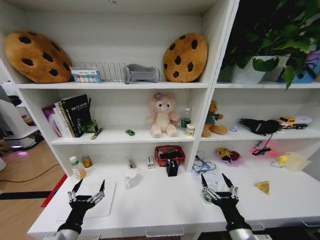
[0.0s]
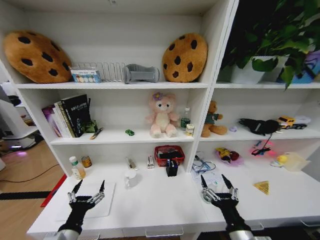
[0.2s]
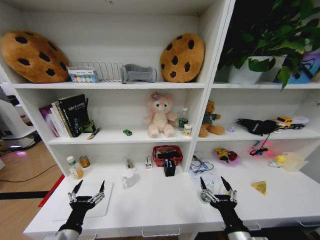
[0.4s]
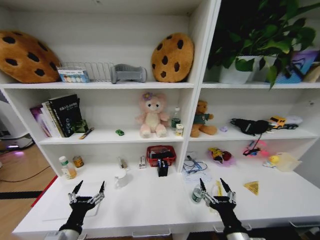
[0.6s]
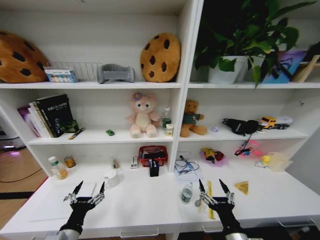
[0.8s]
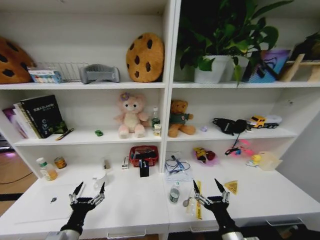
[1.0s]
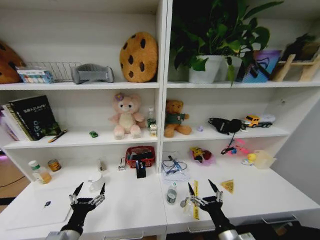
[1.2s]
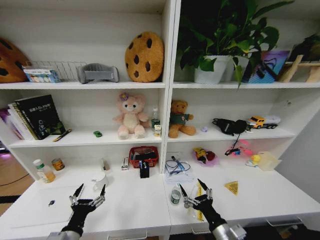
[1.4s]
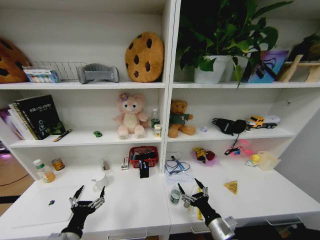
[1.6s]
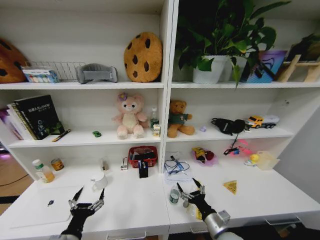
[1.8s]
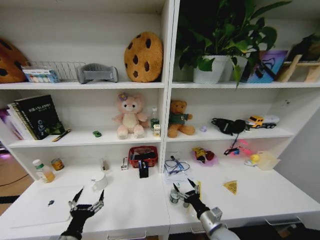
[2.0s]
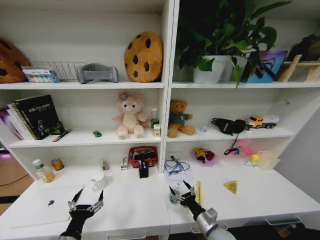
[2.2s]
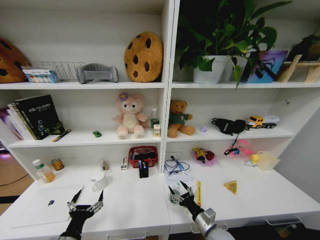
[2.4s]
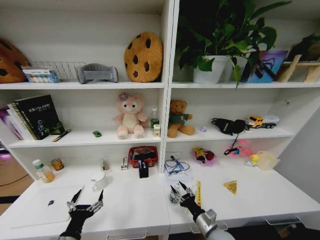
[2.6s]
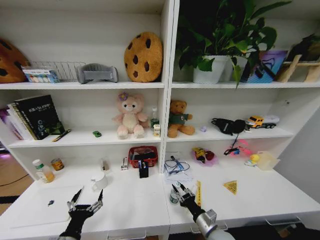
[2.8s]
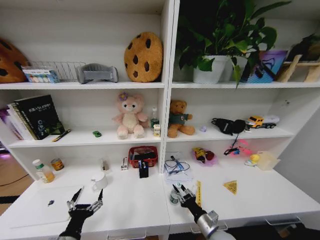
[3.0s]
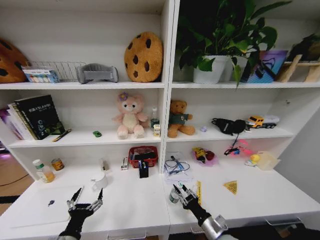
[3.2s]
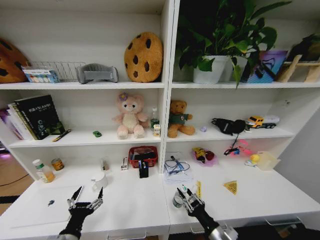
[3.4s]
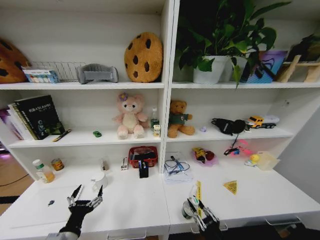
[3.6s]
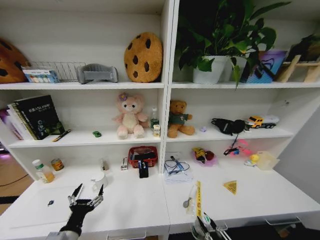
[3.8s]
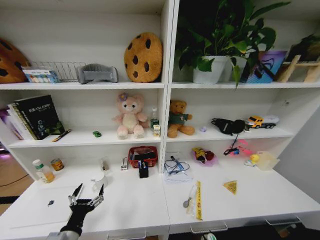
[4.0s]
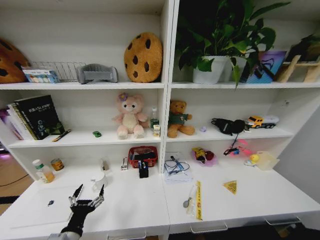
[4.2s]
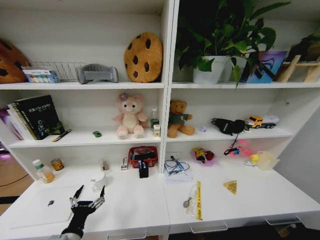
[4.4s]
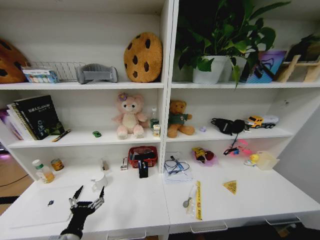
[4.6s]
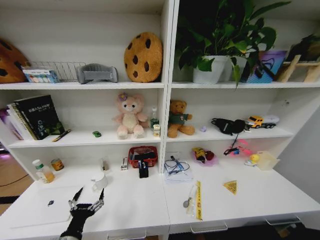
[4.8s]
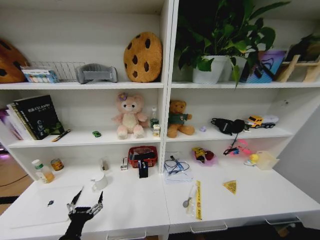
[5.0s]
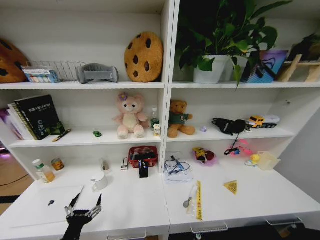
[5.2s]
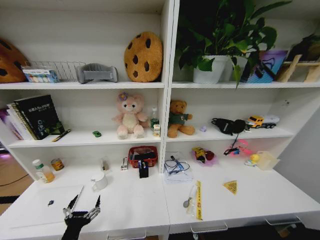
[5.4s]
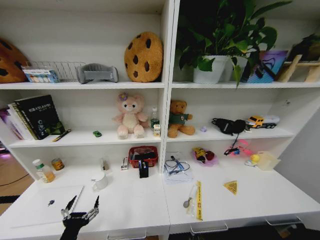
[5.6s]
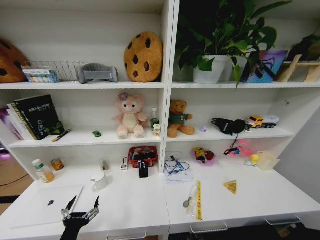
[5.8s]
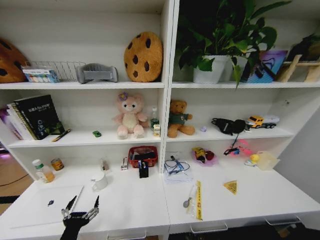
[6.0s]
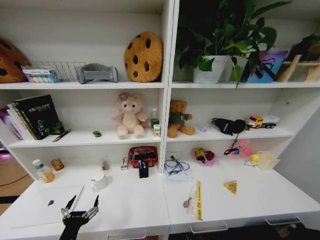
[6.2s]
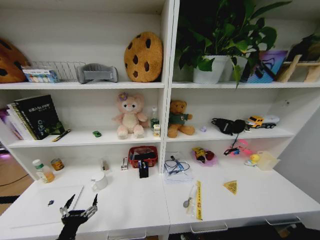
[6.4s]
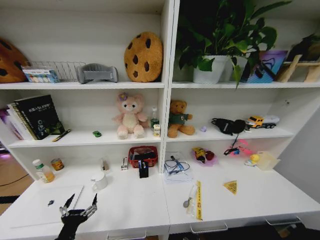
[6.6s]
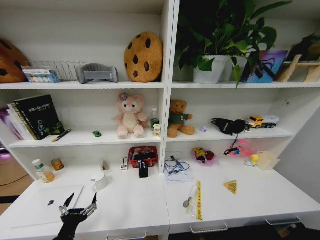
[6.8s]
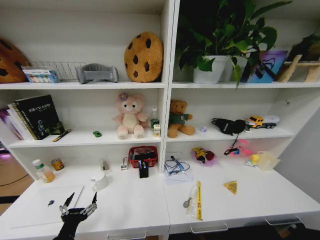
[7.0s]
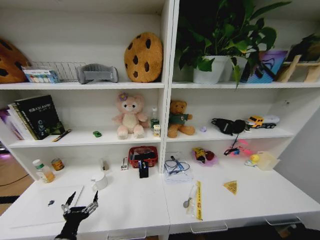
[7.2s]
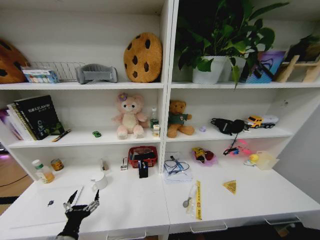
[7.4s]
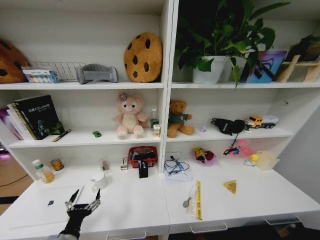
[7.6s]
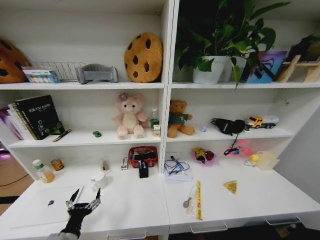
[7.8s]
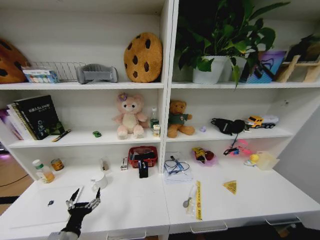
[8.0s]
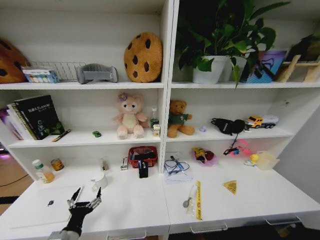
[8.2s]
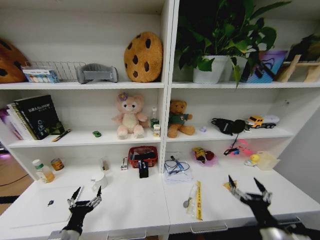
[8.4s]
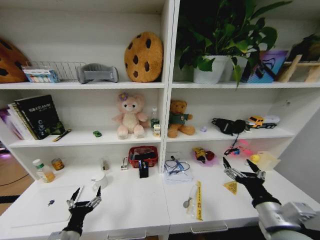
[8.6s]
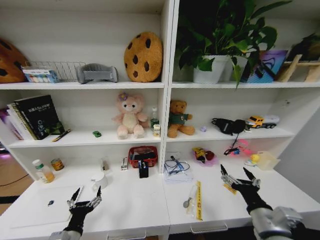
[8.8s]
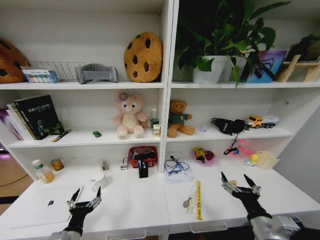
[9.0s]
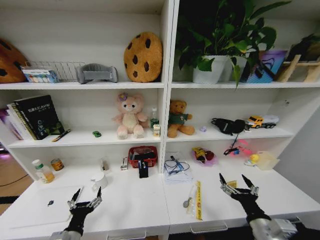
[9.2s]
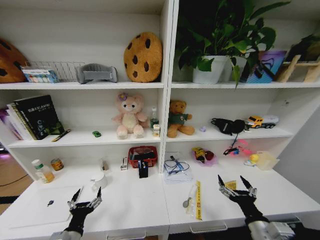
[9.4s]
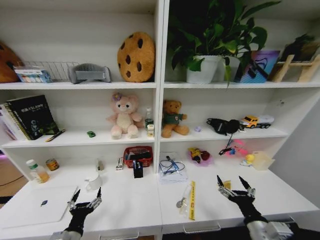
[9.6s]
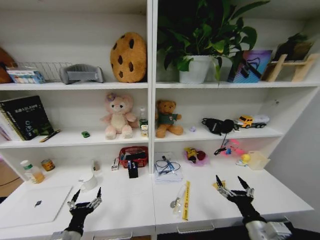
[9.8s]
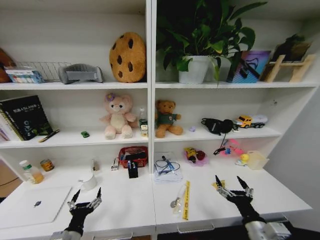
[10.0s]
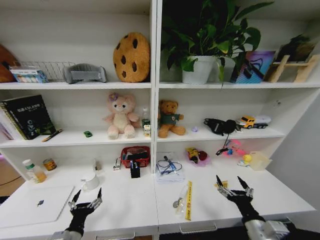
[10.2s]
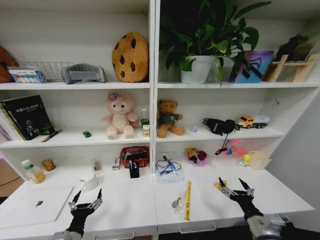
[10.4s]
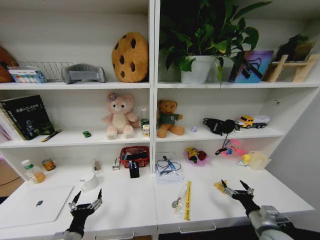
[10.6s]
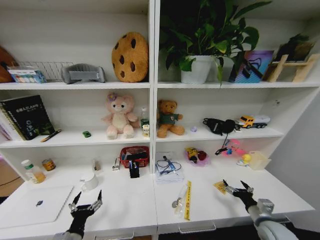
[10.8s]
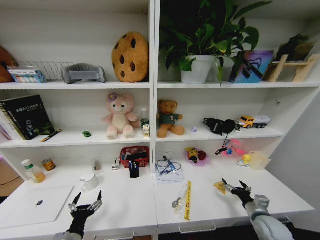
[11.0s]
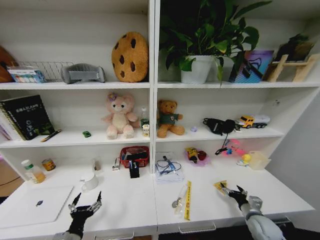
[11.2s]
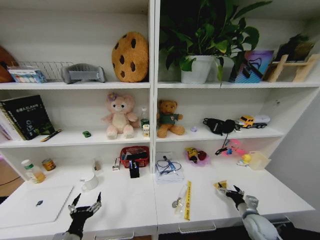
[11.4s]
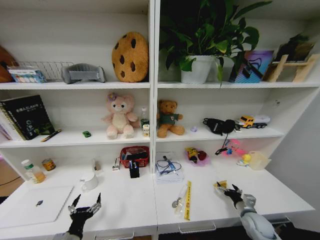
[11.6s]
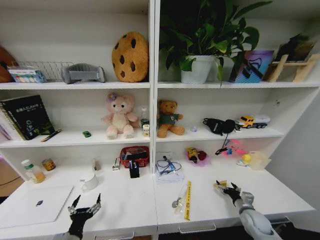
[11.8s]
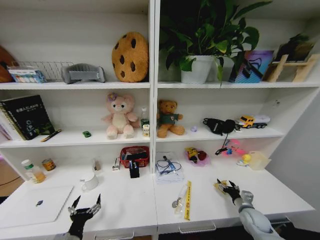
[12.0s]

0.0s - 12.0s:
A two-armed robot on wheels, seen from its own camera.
Task of the whole recording: Organize the objects on the table.
0.0s - 1.6s: The right gripper moves downward, some 10 cm.
1.6s - 3.0s: The right gripper travels downward by some 5 cm, and closes.
3.0s - 4.4s: The right gripper travels backward by approximately 30 cm.
6.0s - 7.6s: The right gripper moves backward and upward, approximately 30 cm, and opens up.
7.6s - 9.0s: The right gripper is displaced upward and forward by roughly 40 cm.
9.0s - 10.4s: The right gripper travels downward by some 5 cm.
10.4s - 12.0s: The right gripper travels forward, downward and to the right by some 20 cm.

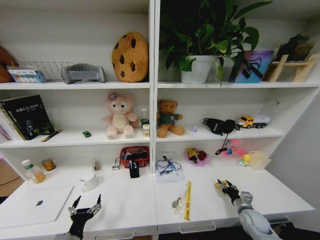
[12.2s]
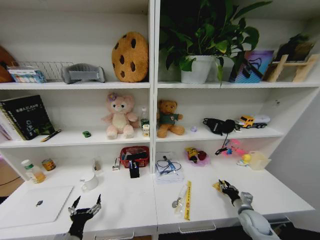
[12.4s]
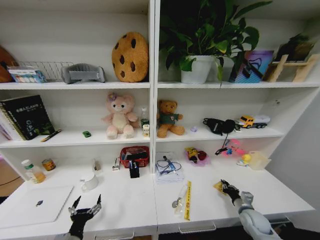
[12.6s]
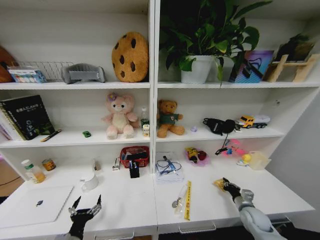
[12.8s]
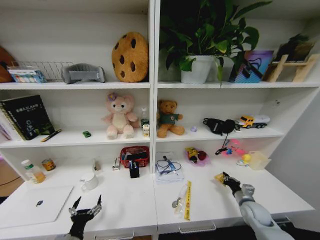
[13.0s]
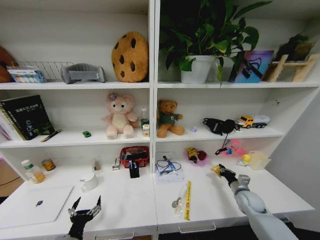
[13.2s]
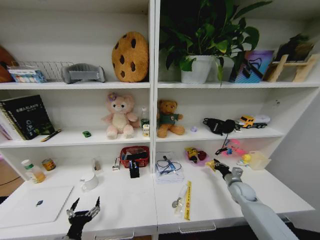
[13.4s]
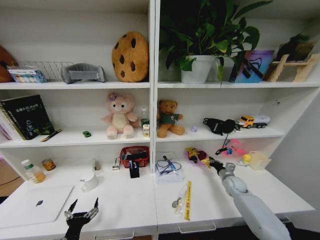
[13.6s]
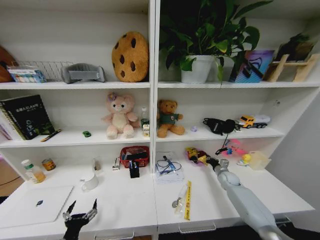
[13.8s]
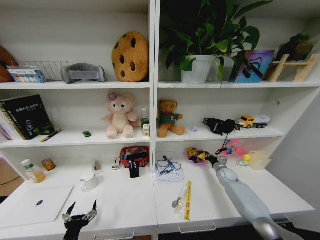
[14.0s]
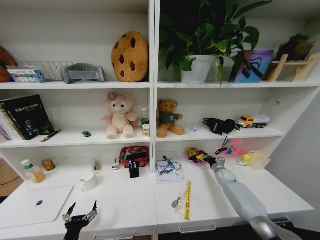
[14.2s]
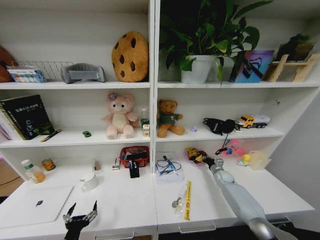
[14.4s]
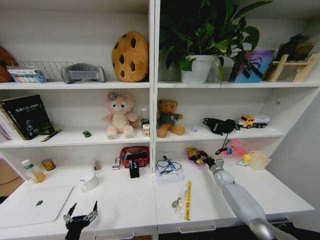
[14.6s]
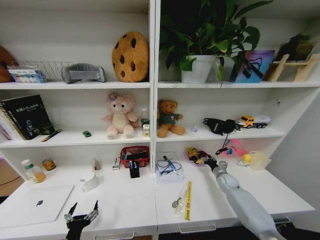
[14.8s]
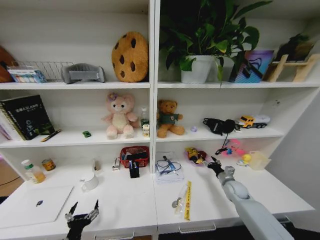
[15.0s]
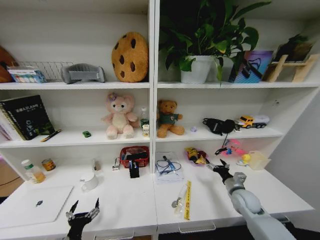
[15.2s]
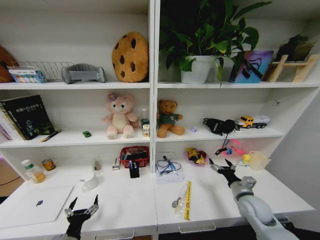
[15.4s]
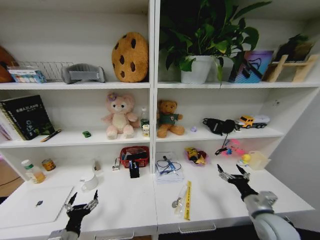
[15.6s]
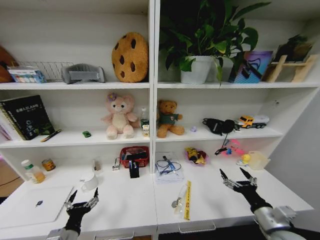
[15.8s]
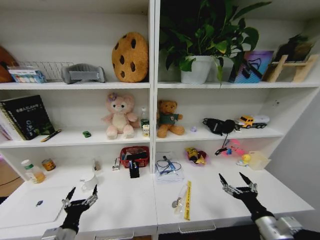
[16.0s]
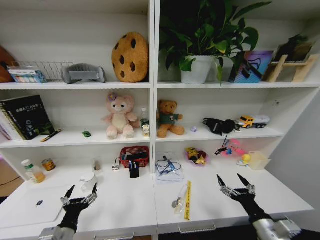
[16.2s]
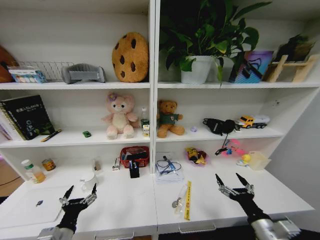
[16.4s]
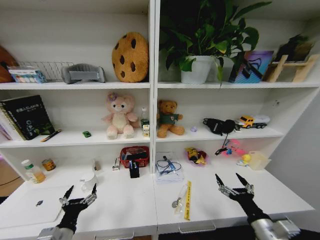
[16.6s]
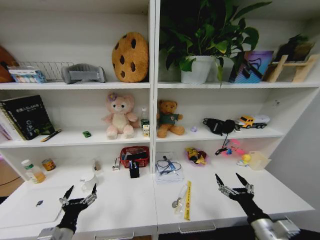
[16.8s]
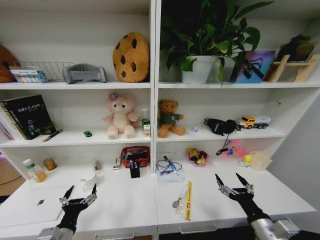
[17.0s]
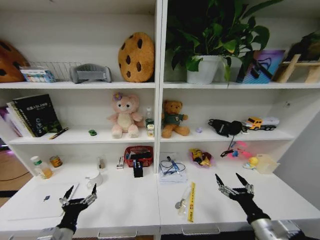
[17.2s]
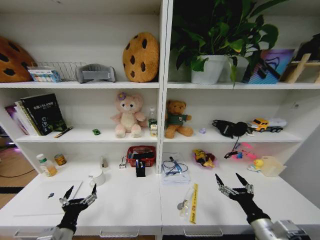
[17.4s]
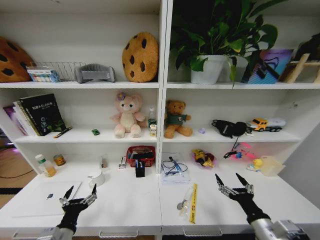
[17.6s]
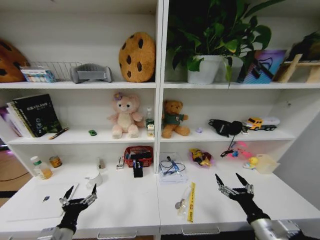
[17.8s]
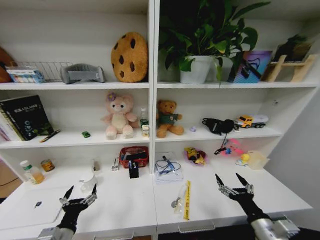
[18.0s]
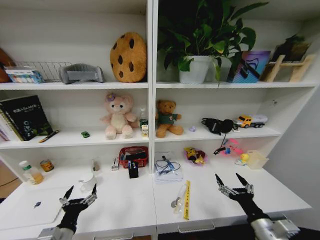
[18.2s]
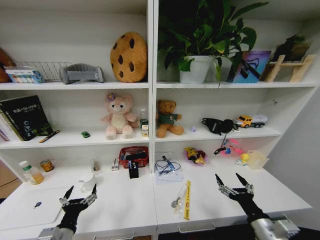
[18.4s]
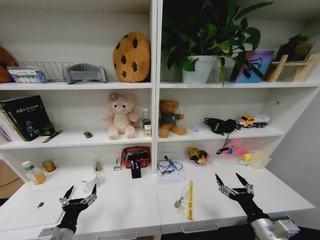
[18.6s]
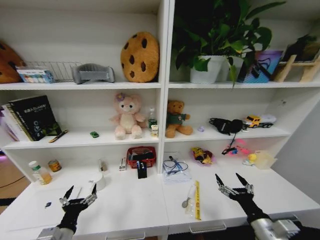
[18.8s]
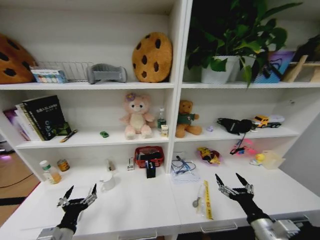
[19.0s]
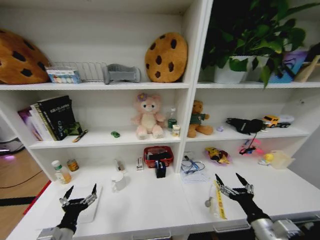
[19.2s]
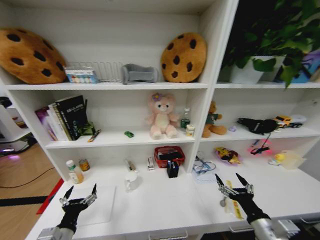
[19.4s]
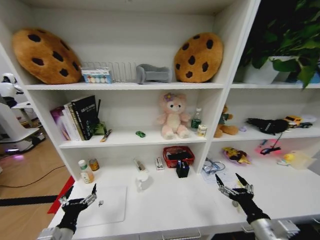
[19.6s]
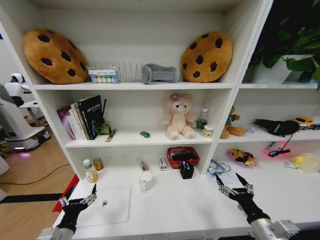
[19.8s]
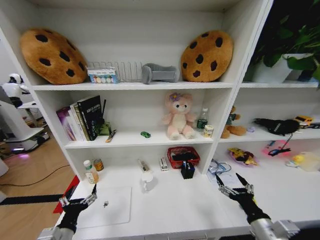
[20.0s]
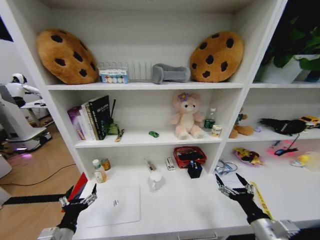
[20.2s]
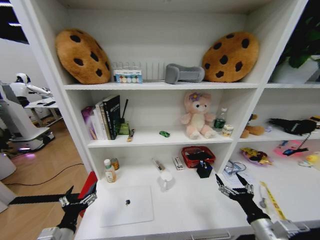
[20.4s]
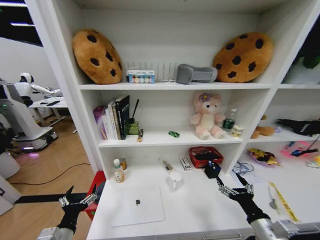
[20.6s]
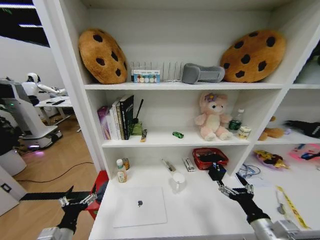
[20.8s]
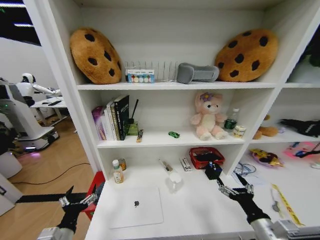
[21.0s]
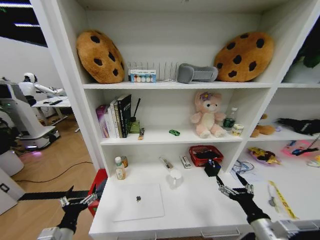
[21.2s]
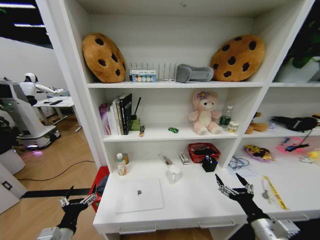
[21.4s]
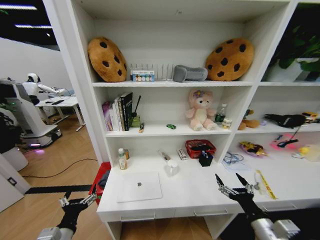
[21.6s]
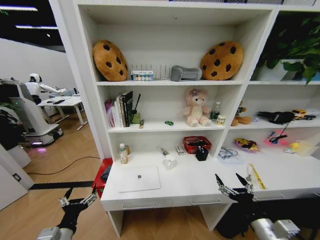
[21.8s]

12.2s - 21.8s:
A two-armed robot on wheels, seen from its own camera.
Task of the whole recording: Organize the objects on the table.
12.2s - 13.8s: The right gripper travels forward by approximately 20 cm, and closes its fingers.
13.8s - 15.4s: The right gripper goes roughly 20 cm backward and upward, and opens.
15.4s - 17.0s: The left gripper heads upward, covering some 5 cm. The right gripper goes approximately 15 cm backward.
17.0s - 18.6s: Both grippers stay put.

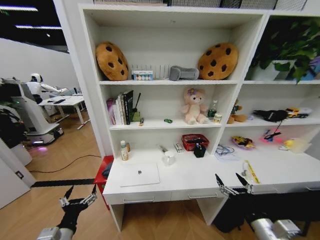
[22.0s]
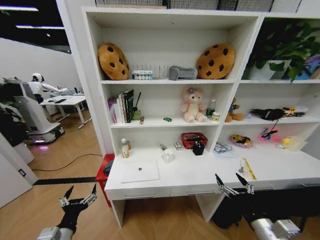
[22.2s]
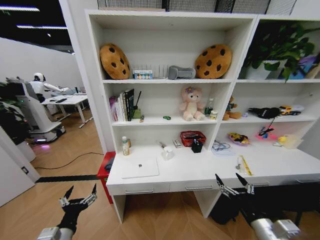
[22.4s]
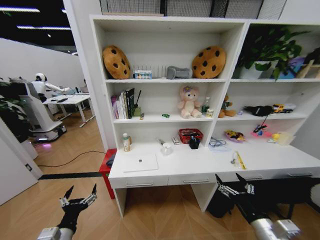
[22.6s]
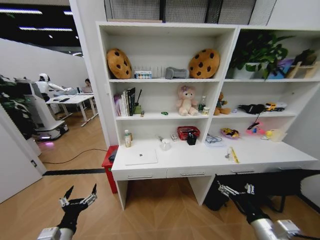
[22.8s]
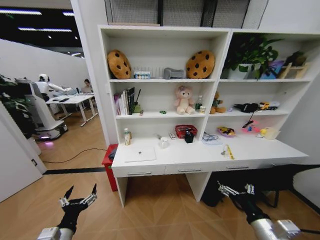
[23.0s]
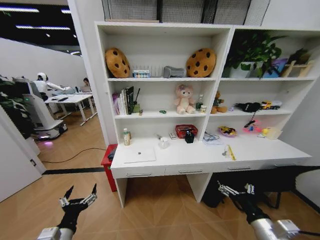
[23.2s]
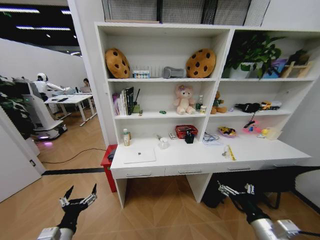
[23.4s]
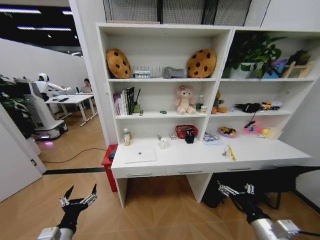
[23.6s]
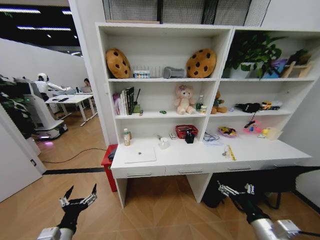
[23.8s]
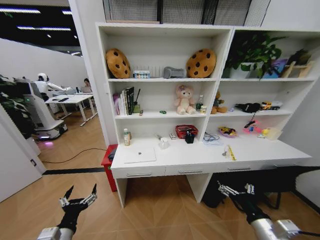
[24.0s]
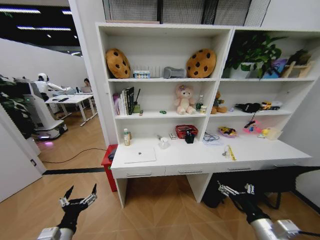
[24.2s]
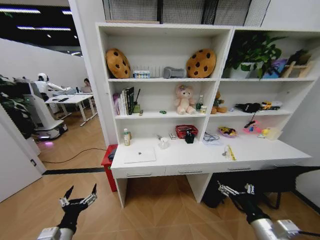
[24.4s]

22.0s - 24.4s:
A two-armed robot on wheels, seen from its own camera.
Task of the whole recording: Organize the objects on the table.
23.2s - 24.4s: The two grippers keep their place.
